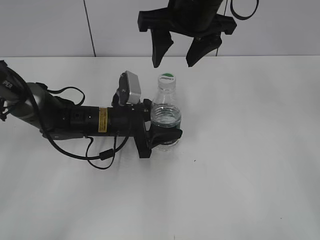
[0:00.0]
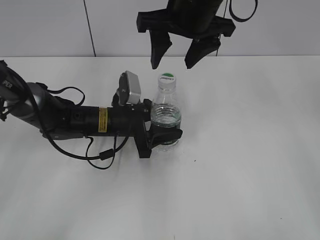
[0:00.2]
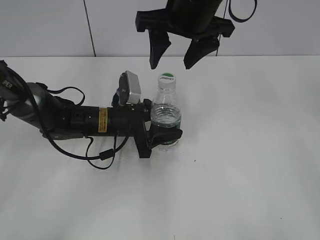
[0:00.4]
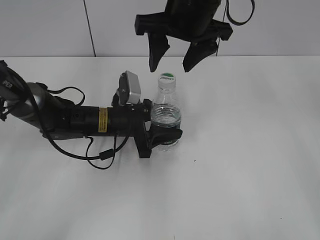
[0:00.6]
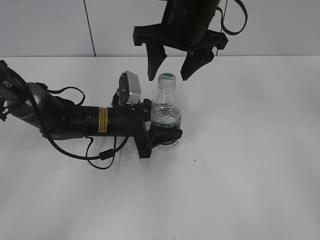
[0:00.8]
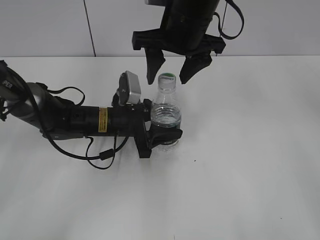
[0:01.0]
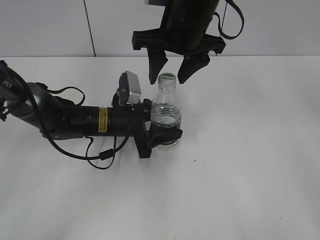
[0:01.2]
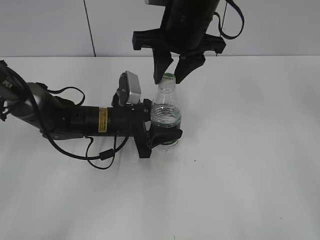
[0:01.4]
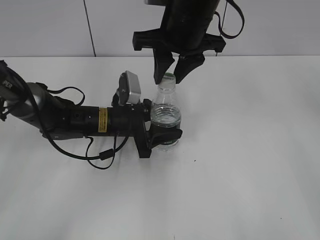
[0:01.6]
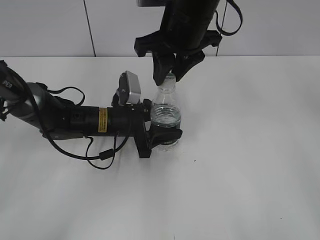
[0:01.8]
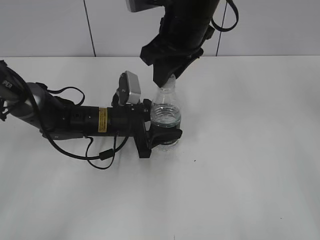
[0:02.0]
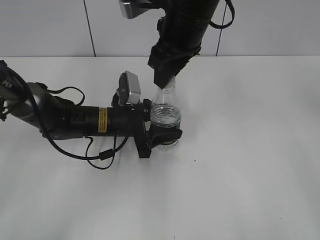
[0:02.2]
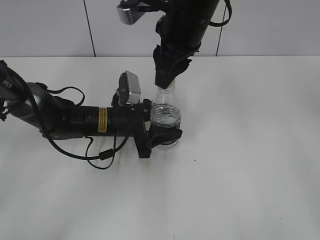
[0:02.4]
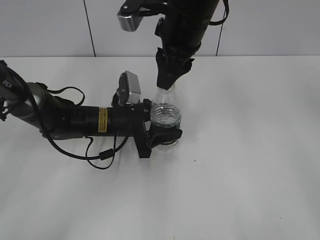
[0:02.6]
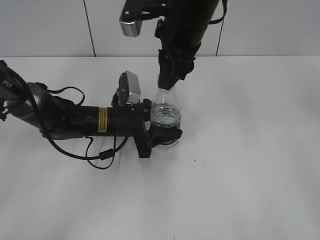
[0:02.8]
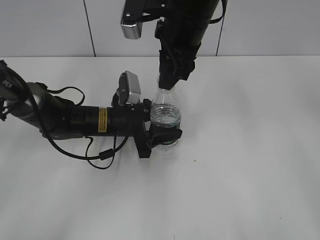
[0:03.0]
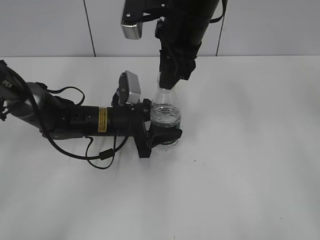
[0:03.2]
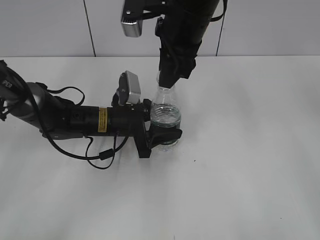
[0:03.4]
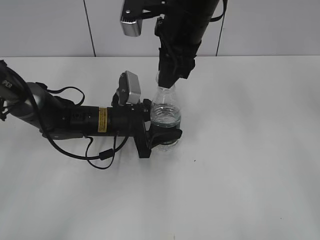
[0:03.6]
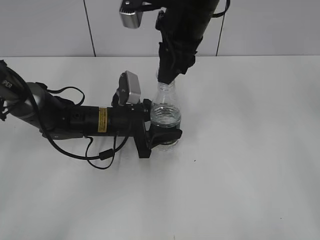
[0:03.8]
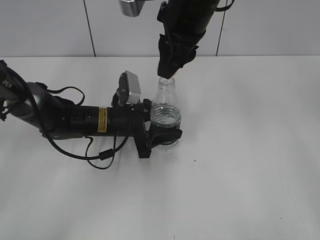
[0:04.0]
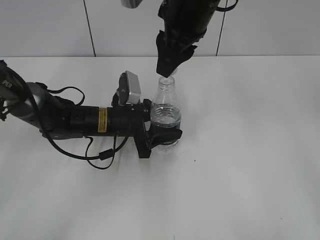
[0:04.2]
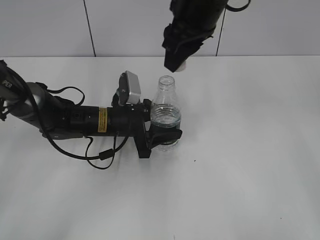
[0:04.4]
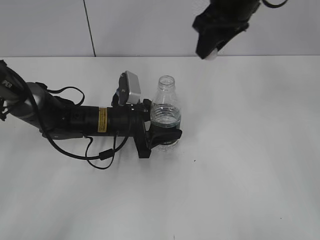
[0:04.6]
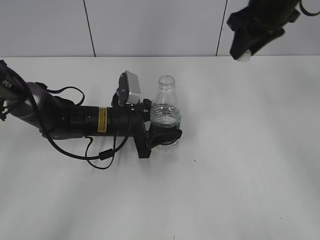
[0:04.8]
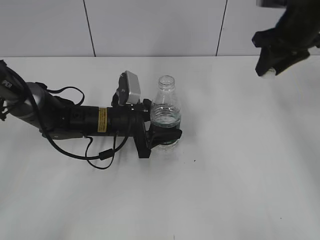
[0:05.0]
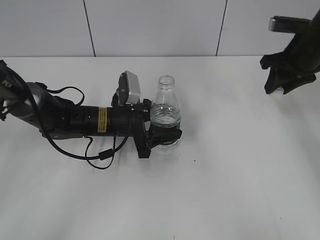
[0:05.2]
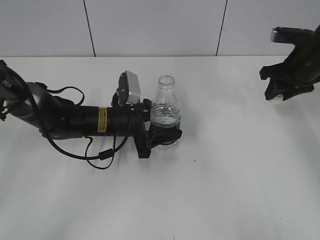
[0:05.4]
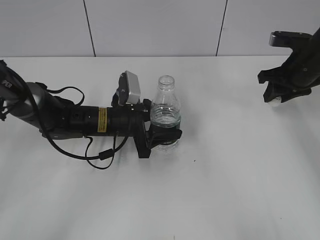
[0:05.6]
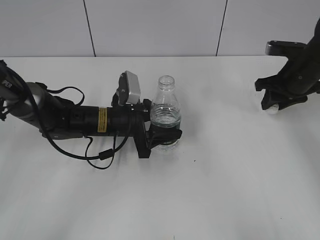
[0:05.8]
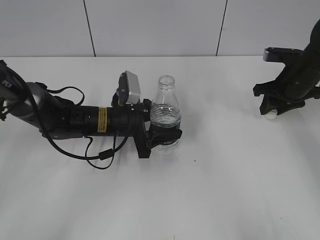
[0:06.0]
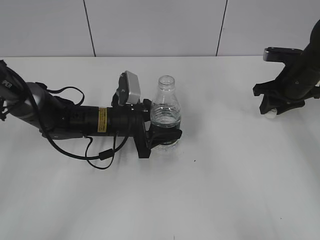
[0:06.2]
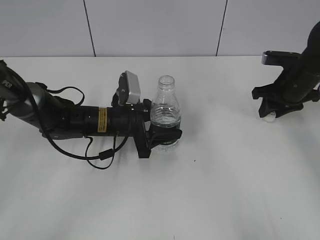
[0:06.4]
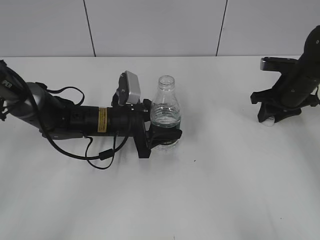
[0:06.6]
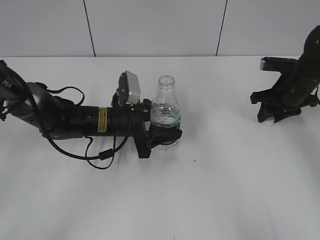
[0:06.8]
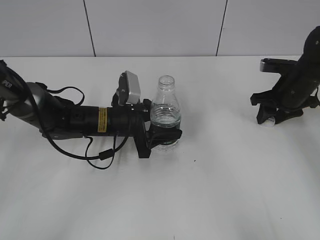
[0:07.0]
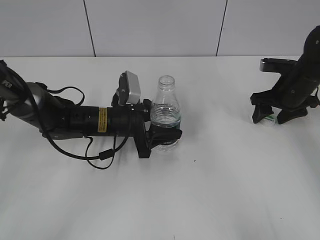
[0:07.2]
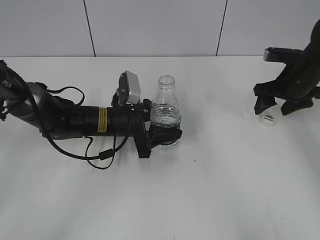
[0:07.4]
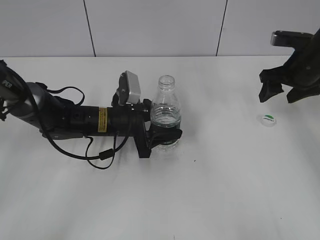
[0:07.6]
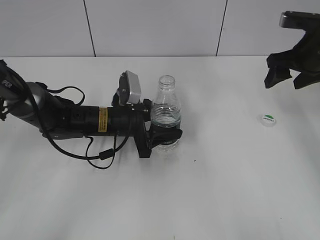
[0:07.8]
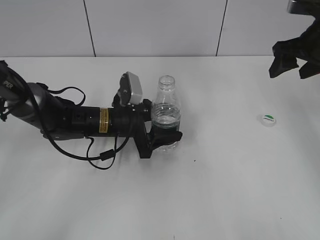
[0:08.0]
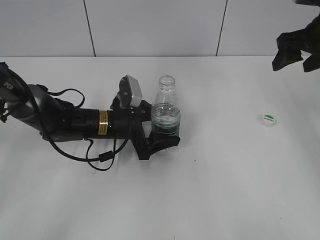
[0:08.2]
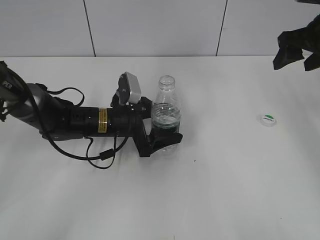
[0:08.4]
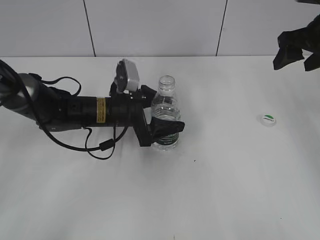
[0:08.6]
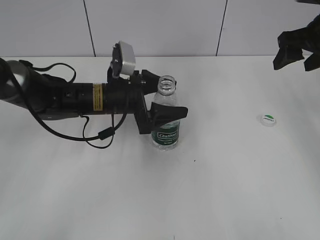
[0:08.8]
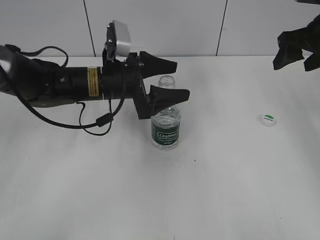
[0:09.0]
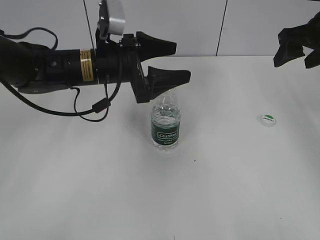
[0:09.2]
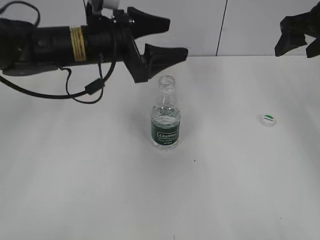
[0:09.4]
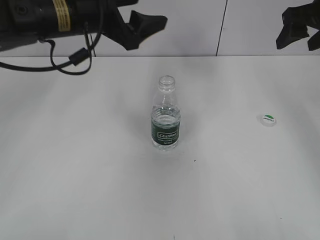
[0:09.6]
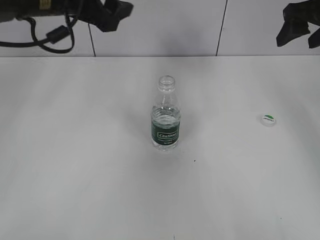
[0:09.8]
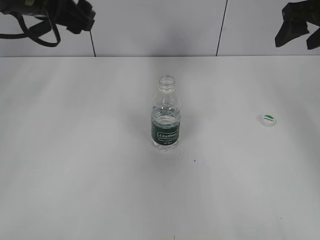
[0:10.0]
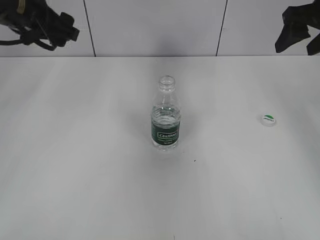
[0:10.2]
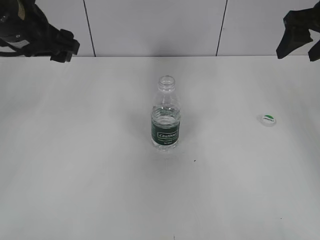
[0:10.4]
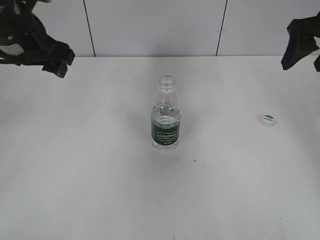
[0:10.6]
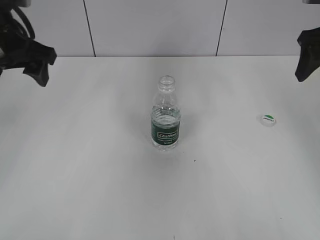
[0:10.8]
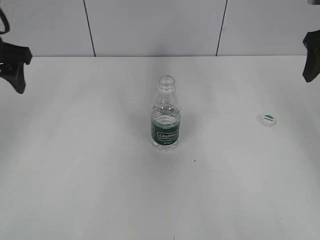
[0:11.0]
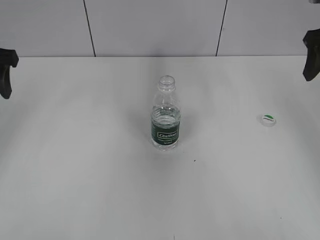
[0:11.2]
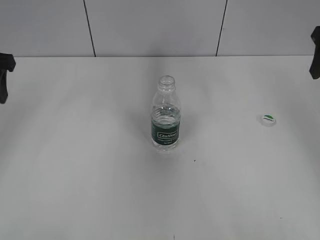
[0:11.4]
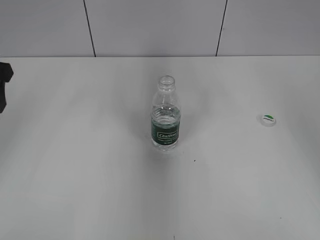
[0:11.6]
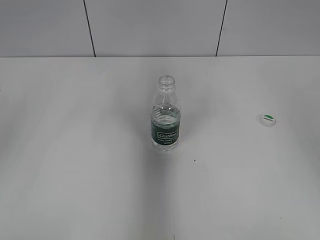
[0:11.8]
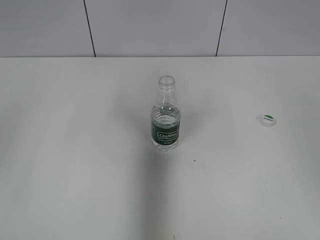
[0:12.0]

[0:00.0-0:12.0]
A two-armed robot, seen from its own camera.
Step, 0:00.0 to 0:04.0: Unscrew the bottle cap with the right gripper while holding the bottle with the left gripper.
Step, 0:04.2 to 0:07.4: Place the bottle cap on the table with the right gripper.
Step, 0:07.6 to 0:09.0: Place the bottle on the table with the left gripper.
0:00.0 to 0:01.6: The right gripper closes up.
0:04.4 to 0:06.0: The right gripper heads to the right and downward, covering some 30 cm.
0:06.0 to 0:07.6: The right gripper opens its fingers.
0:07.6 to 0:09.0: Both grippers move upward, some 10 cm. The left gripper opens.
0:09.0 to 0:10.4: The left gripper shifts approximately 15 cm upward and to the left.
0:10.4 to 0:12.0: The right gripper is displaced backward by some 20 cm. Meanwhile the left gripper travels backward and to the left by roughly 20 cm.

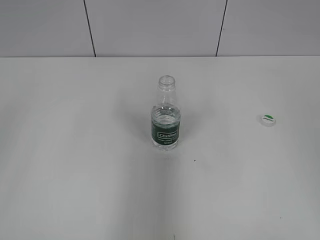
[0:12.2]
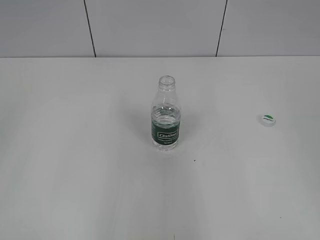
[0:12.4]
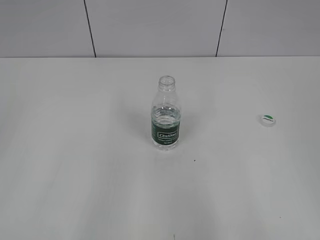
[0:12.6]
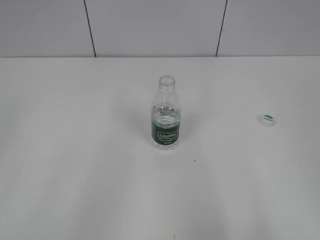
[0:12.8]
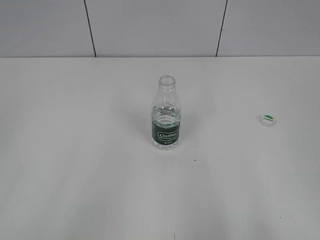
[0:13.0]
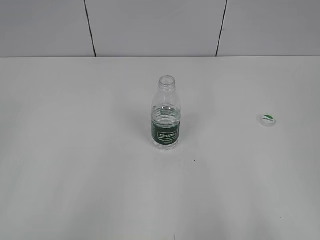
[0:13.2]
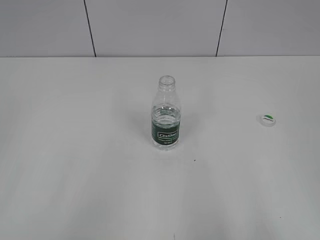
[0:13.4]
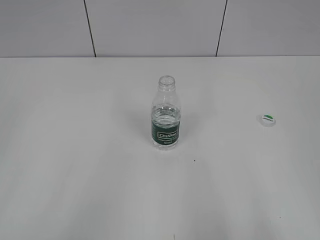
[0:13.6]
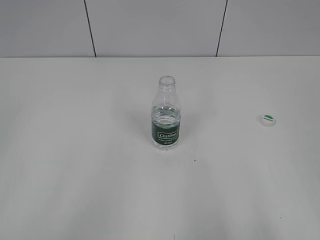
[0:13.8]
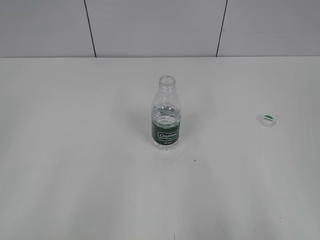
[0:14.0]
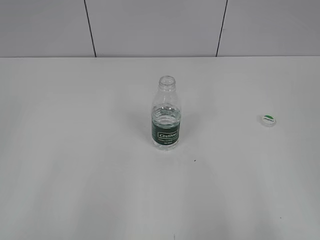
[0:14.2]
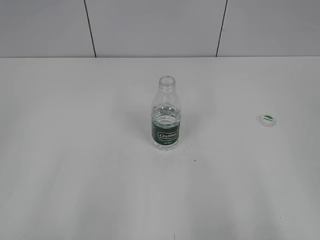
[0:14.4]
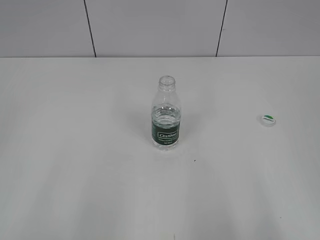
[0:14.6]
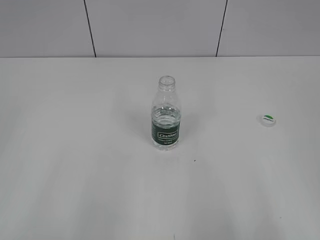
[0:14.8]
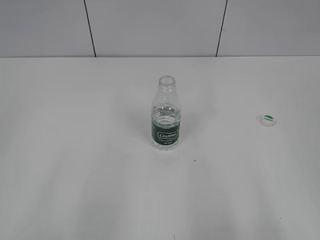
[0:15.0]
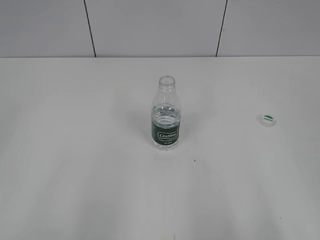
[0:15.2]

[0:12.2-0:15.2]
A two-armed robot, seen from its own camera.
0:12.2 to 0:13.8: The grippers both shift backward and downward by approximately 15 cm.

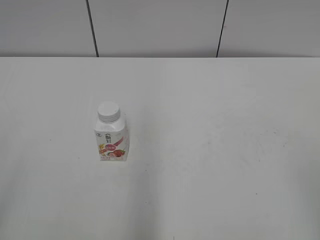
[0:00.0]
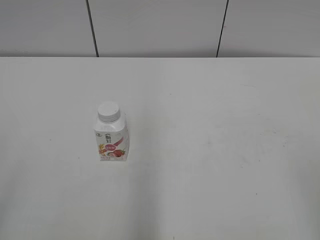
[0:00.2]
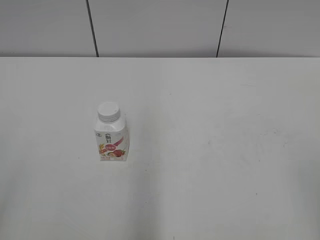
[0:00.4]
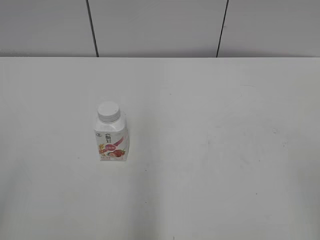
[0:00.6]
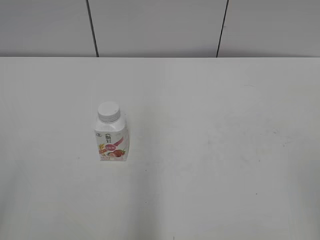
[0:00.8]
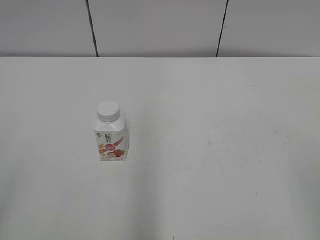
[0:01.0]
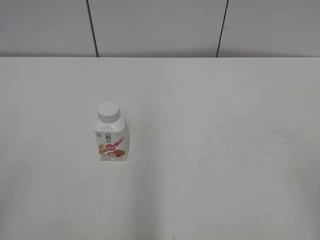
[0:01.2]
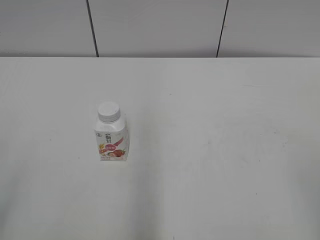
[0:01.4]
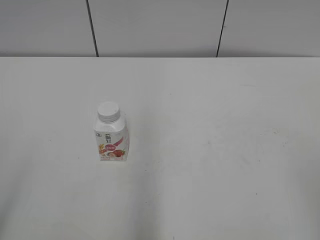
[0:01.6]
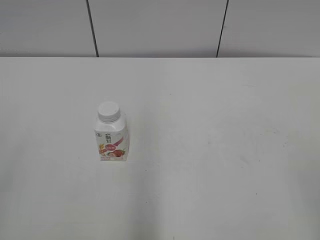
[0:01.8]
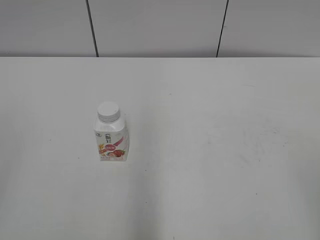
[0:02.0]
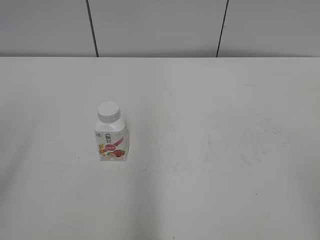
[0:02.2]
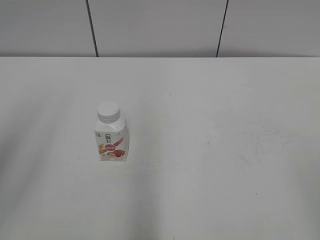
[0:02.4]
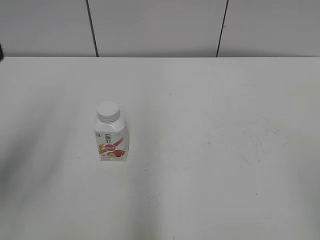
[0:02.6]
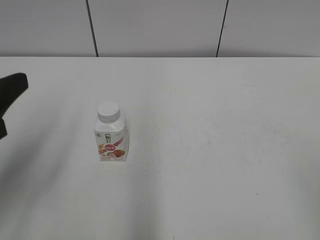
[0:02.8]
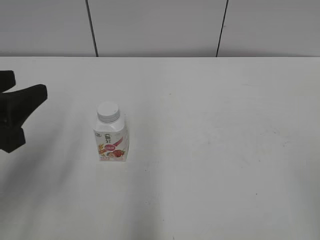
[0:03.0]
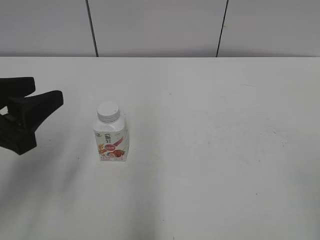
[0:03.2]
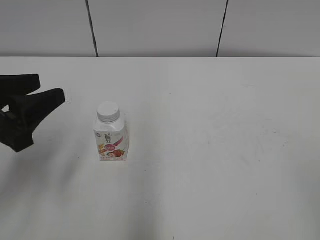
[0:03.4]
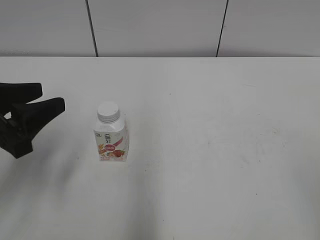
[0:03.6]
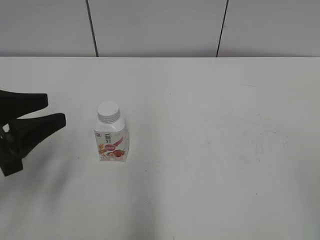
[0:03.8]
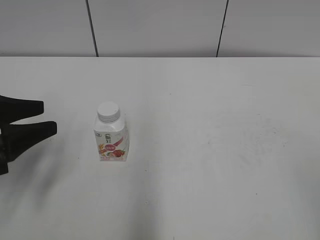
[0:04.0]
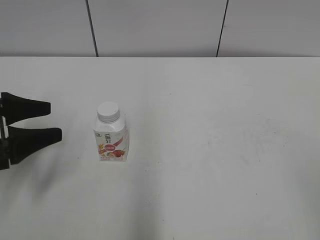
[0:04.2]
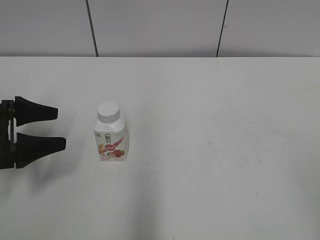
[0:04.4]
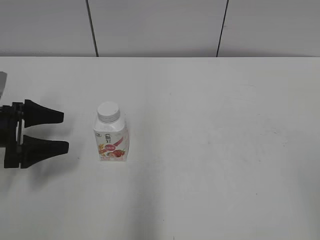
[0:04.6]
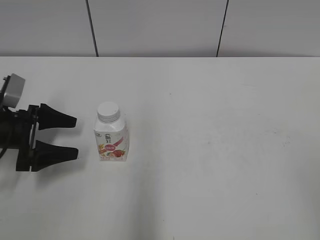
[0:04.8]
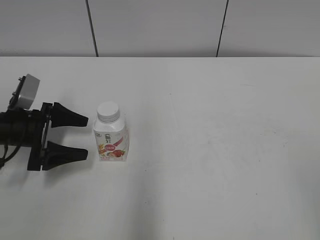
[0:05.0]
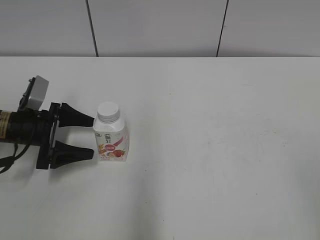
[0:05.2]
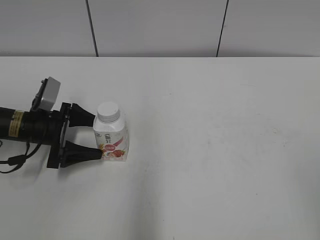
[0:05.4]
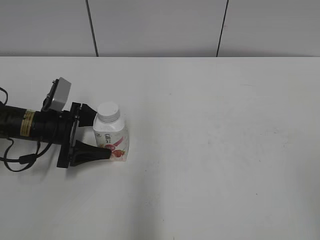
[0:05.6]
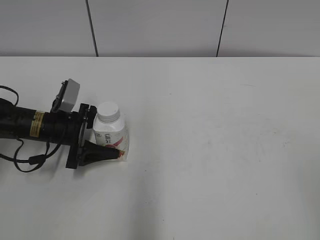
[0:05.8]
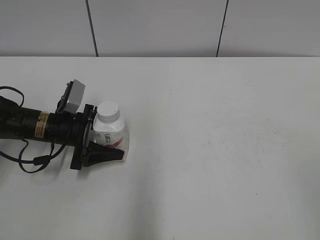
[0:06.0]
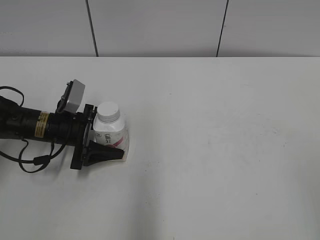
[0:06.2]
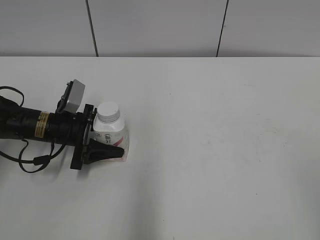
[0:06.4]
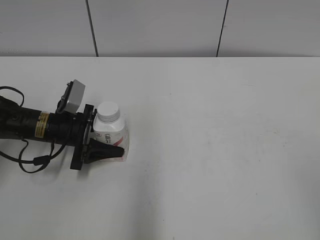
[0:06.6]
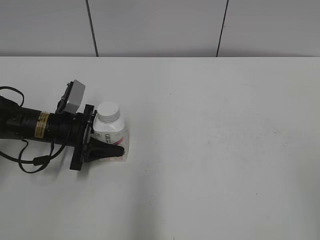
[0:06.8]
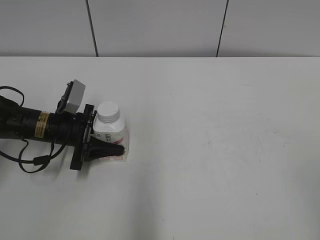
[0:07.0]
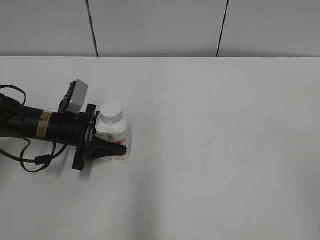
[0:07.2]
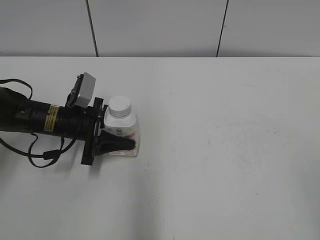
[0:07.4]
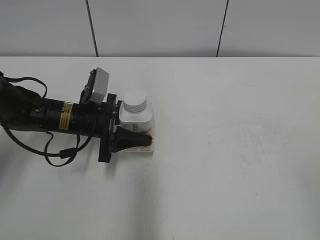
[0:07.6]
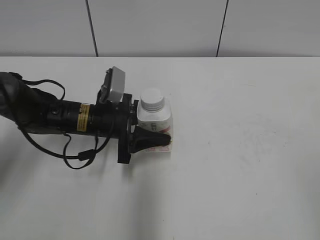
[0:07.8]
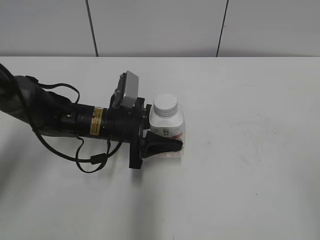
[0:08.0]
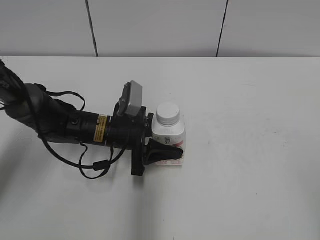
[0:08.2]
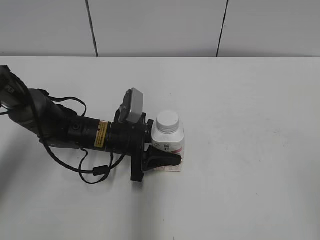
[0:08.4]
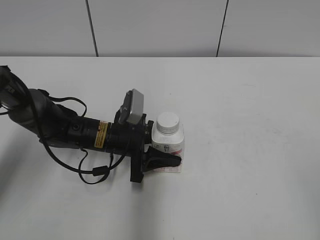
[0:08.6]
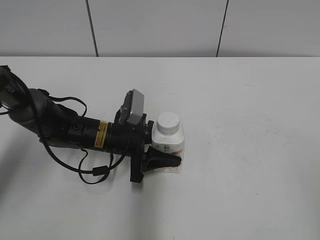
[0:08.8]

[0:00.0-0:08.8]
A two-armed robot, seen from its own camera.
Step, 0:00.0 to 0:07.0: Grasp the bottle and move it to the center of the table with the left gripper.
0:01.4 to 0:03.0: The left gripper shifts roughly 20 cm forward and to the right.
0:03.0 to 0:04.4: The left gripper heads downward, forward and to the left, covering some 15 cm, and opens its fingers.
0:04.4 to 0:05.8: The left gripper heads forward, to the right and downward, covering about 15 cm.
0:05.8 to 0:07.4: The left gripper closes up.
0:07.4 to 0:08.8: The left gripper heads to the right, covering about 10 cm.
